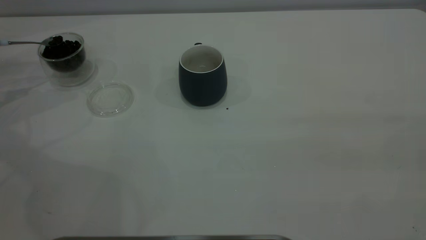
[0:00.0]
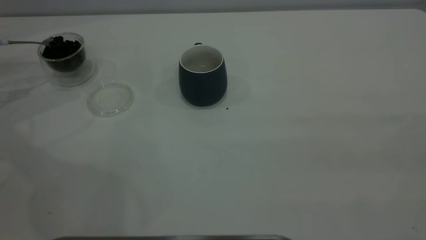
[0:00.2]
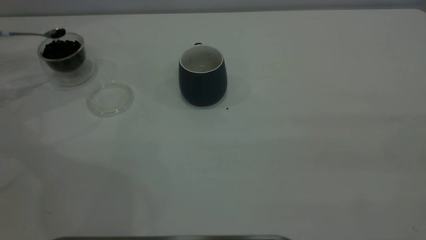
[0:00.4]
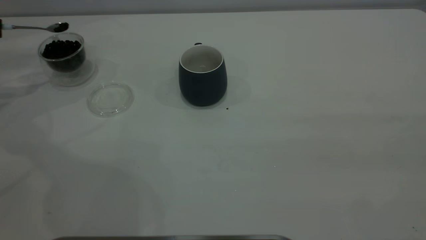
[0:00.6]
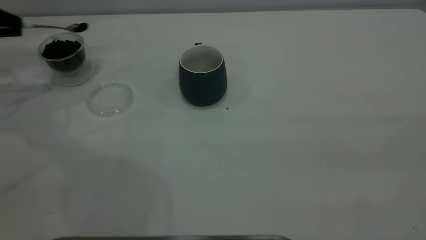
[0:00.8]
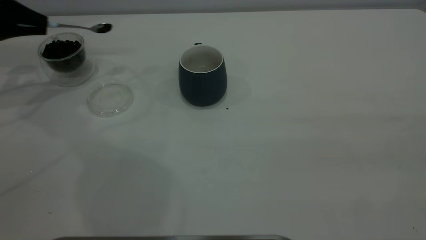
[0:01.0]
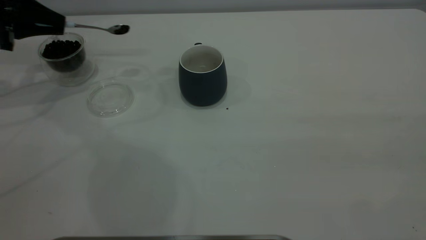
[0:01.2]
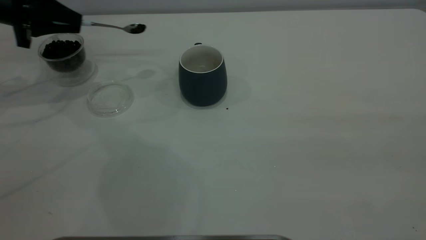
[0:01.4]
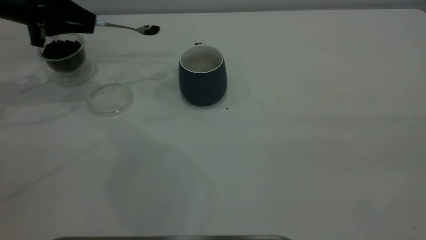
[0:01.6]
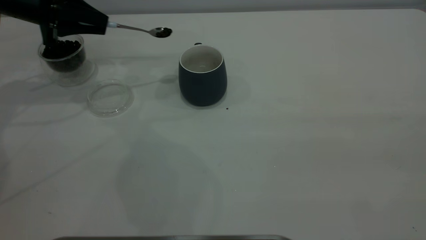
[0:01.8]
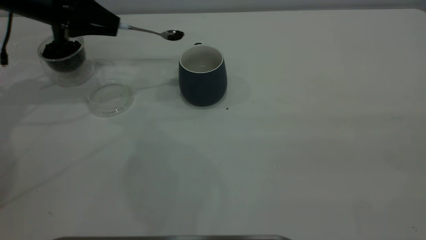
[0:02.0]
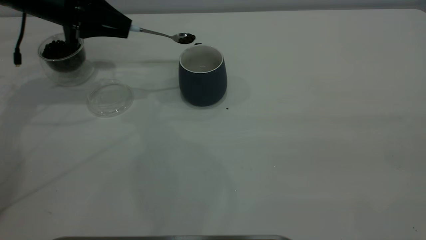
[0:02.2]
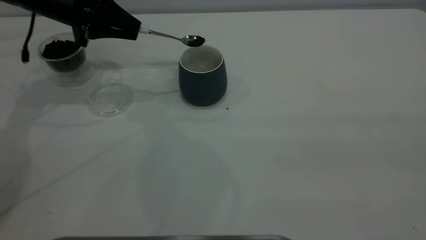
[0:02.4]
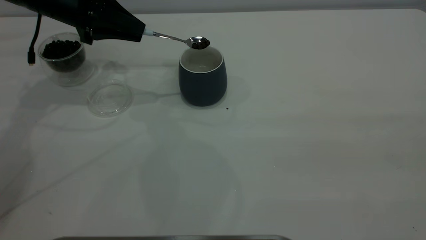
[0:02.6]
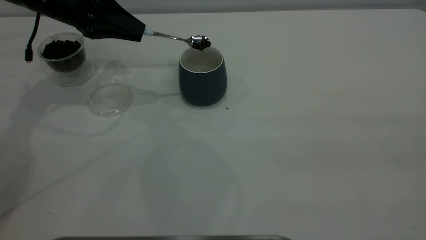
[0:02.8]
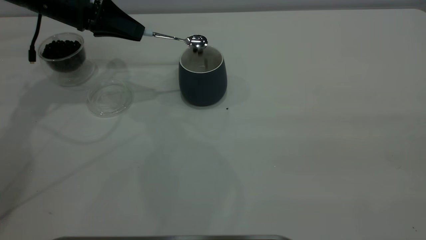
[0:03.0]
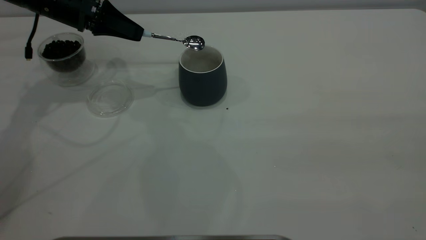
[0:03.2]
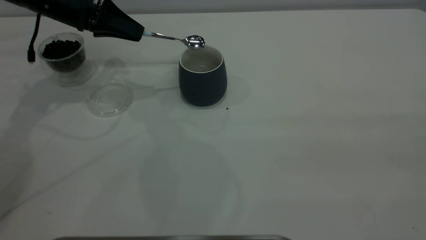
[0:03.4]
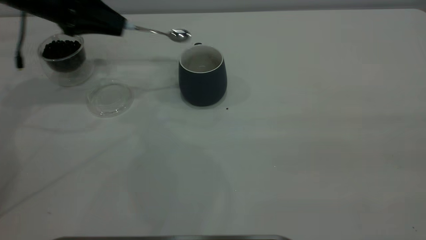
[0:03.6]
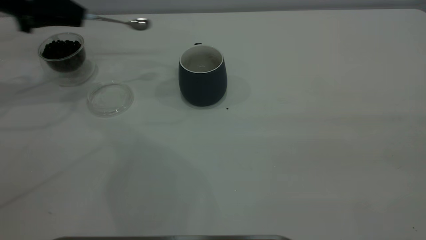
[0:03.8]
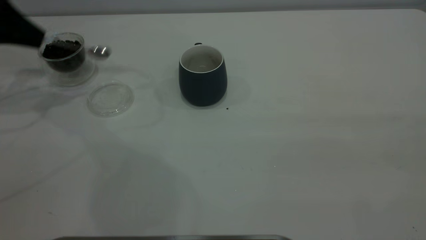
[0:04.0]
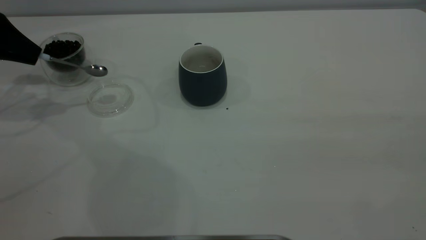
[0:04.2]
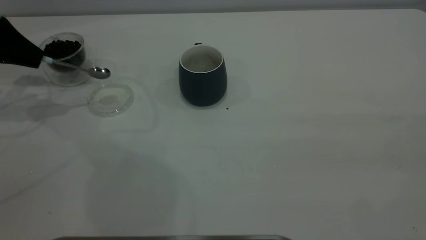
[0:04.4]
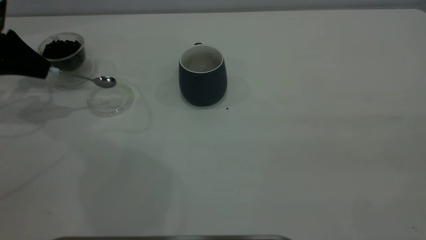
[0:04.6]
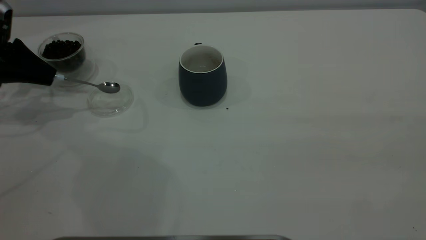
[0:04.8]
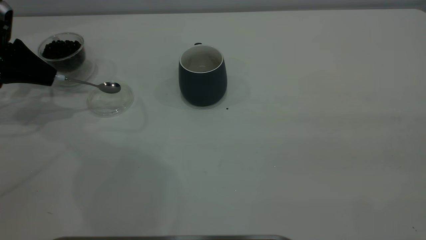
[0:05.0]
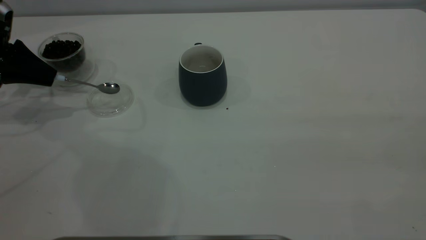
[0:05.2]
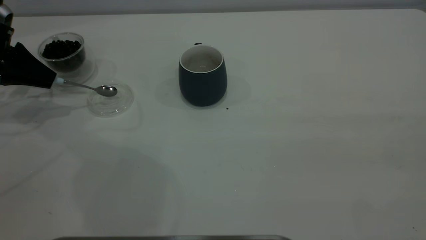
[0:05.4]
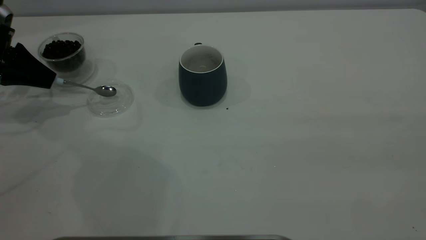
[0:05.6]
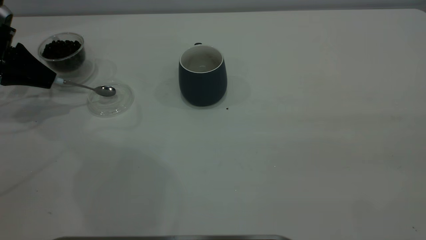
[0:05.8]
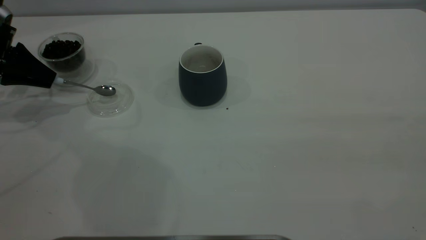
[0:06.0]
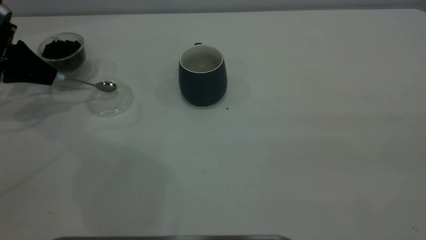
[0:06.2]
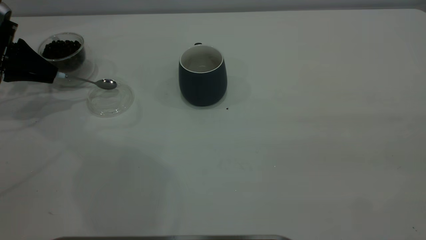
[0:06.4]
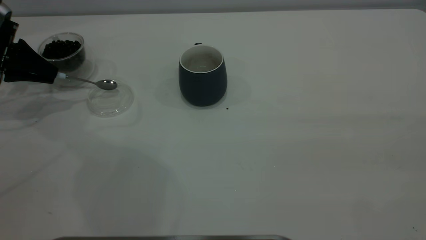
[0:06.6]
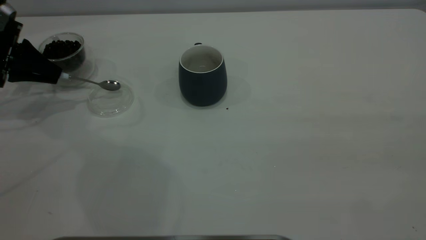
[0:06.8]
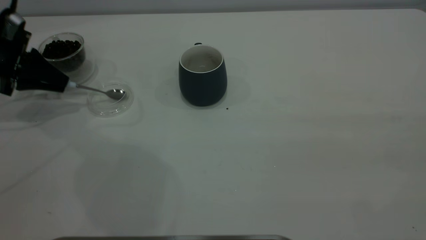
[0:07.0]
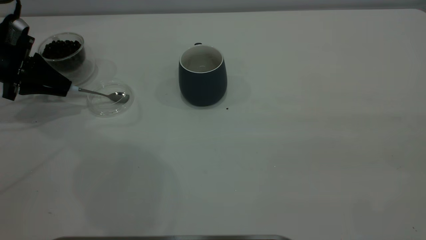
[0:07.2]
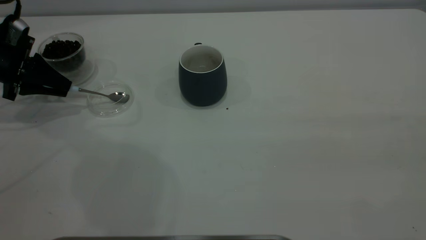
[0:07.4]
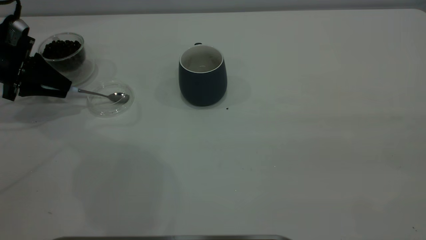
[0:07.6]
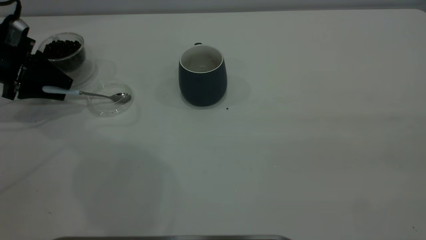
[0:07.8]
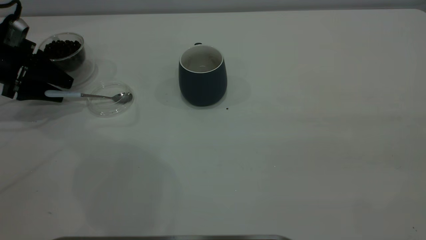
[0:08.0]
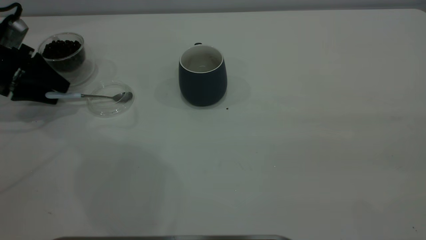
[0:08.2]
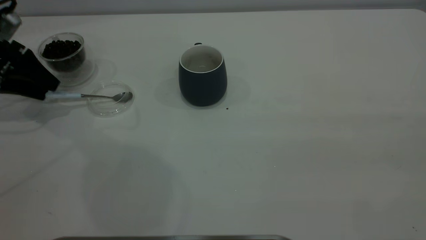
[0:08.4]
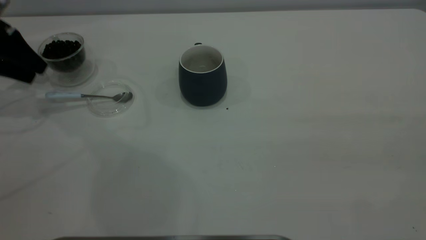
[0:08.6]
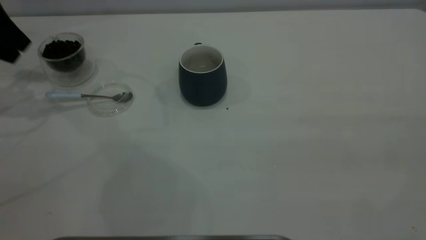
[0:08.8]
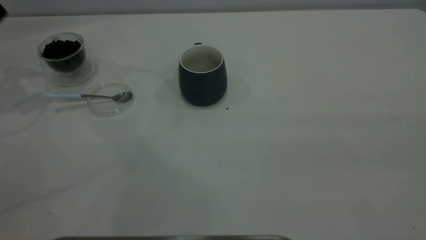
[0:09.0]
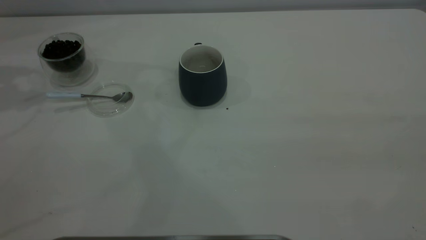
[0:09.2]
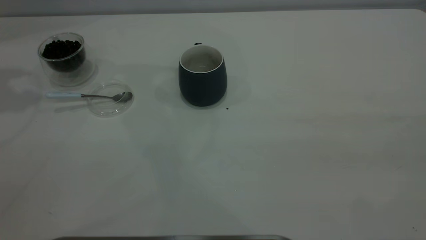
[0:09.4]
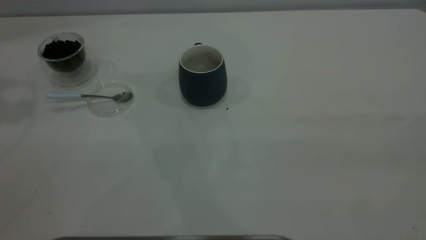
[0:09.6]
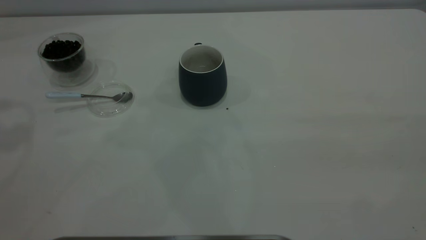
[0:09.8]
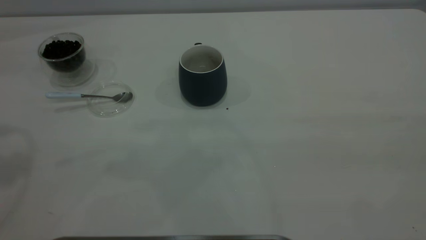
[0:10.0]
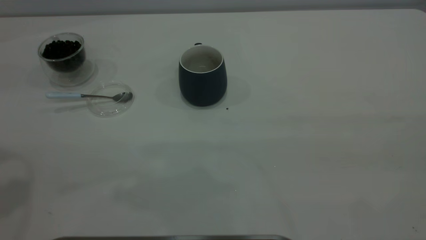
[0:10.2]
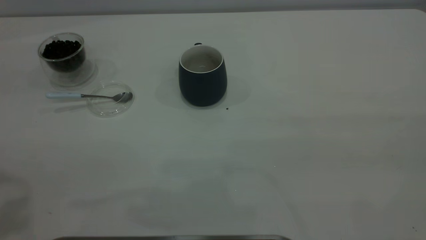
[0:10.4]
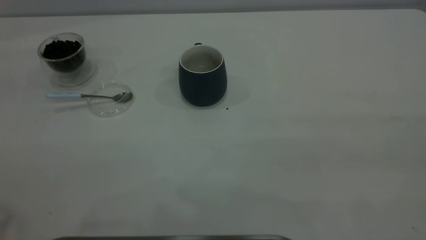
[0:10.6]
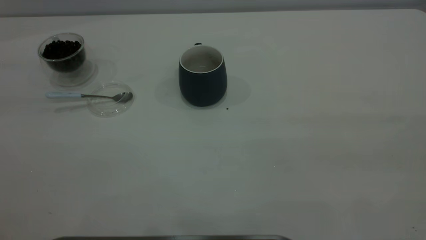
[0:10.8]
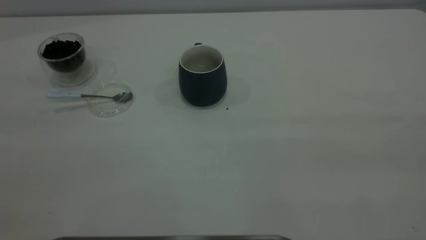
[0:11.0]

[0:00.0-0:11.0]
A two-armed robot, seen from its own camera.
Task of the whole recording: the right gripper place the grey cup in the center of the table, the left gripper take the blue spoon from the cup lid and scoop out the coffee beans from the coffee cup and put them into the grey cup, the left gripper put the spoon back into the cup lid.
Step, 0:00.0 to 0:03.4: Scoop a spoonful of beans into the cup.
Step, 0:03.8 to 0:08.8: Place the spoon back in its original place.
0:00.0 to 0:01.6: The left gripper goes roughly 15 cm to the right.
0:01.6 to 0:03.2: The left gripper travels to the right by about 5 cm.
0:03.2 to 0:04.8: The left gripper heads to the left, covering about 15 cm.
0:06.2 to 0:07.8: The left gripper opens.
0:07.8 to 0:09.4: The left gripper moves upward, approximately 30 cm.

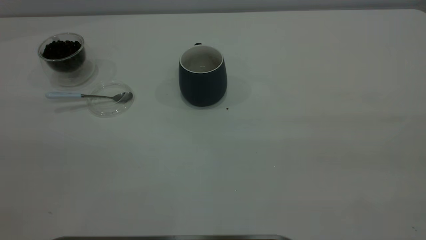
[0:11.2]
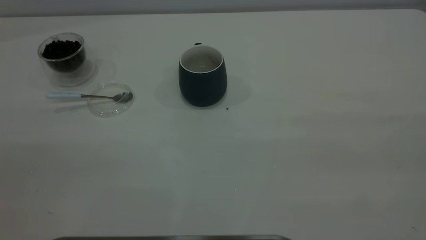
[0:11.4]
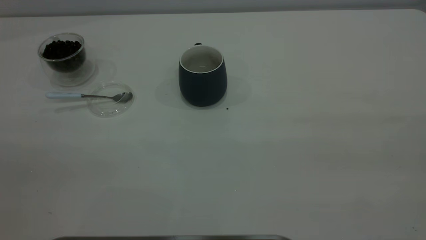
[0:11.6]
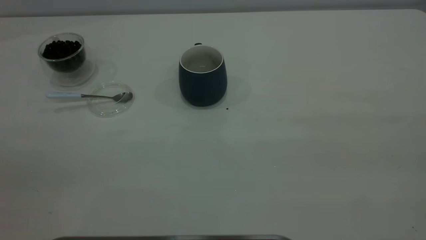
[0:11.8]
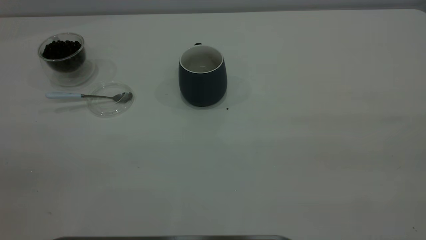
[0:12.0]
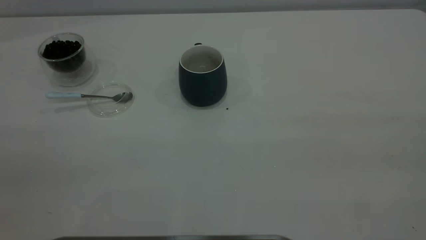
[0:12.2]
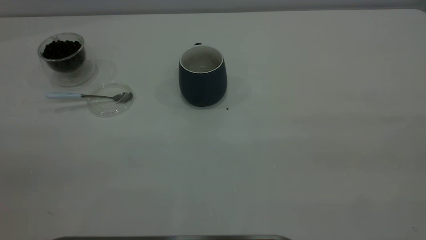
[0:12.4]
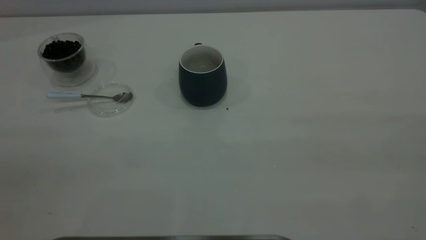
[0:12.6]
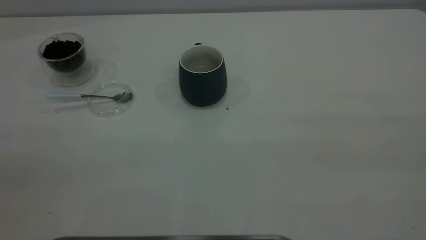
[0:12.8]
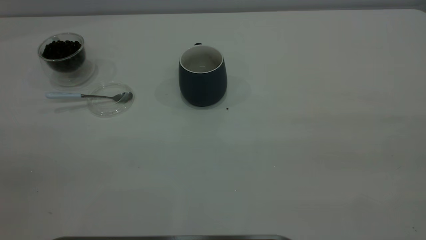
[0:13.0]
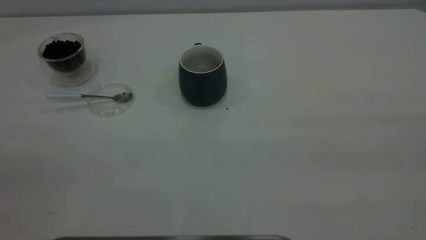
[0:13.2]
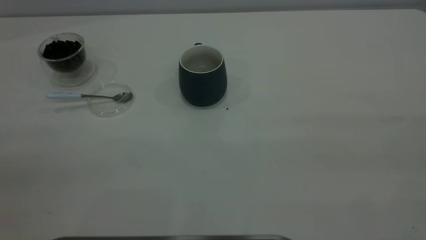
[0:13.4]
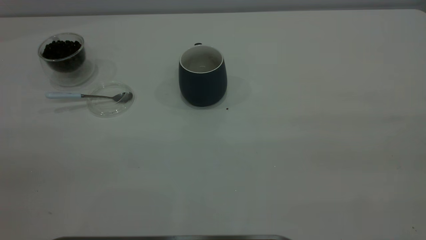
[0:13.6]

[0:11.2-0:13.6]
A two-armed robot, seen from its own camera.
Task of the whole recording: the right gripper place the grey cup in the center of the table, the left gripper take the blue spoon from the cup lid and scoop out the coffee beans from the coffee cup and put them into the grey cup, the left gripper put the spoon back into the cup lid.
0:12.4 to 0:13.6: Neither gripper changes place.

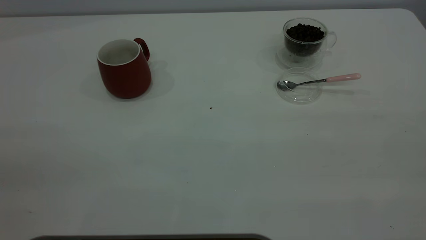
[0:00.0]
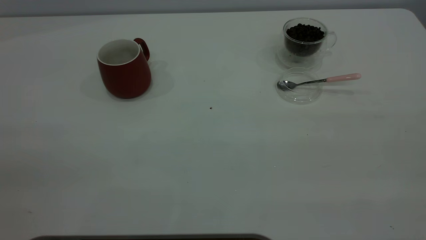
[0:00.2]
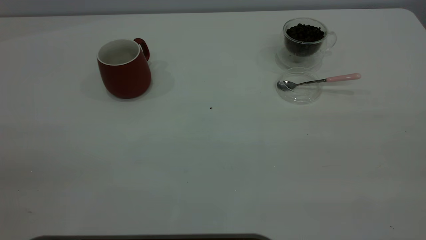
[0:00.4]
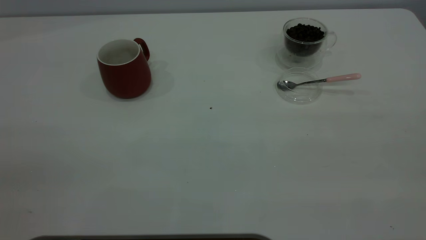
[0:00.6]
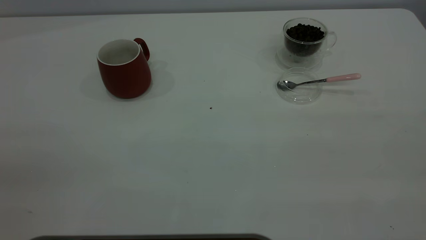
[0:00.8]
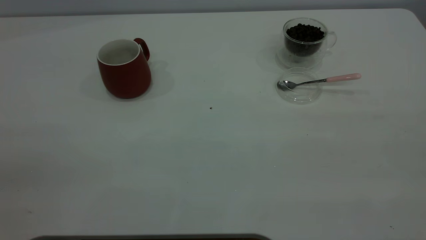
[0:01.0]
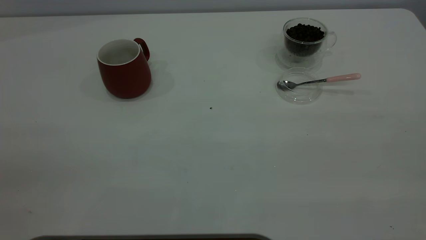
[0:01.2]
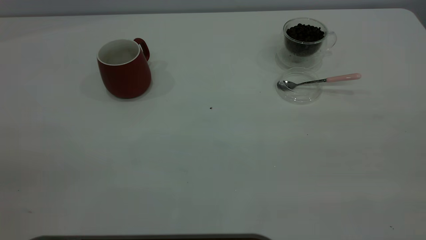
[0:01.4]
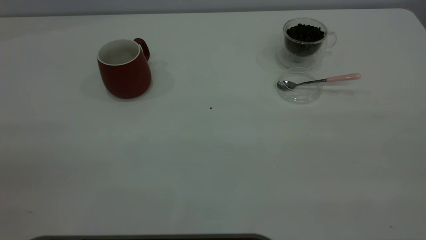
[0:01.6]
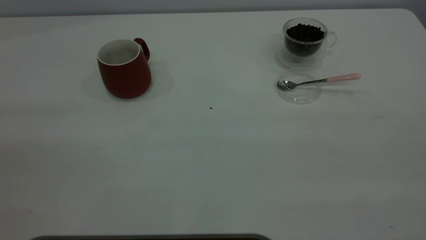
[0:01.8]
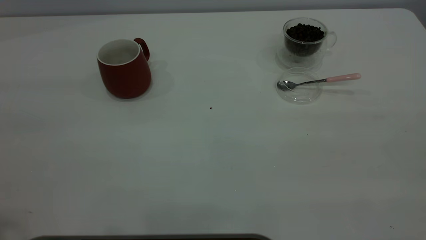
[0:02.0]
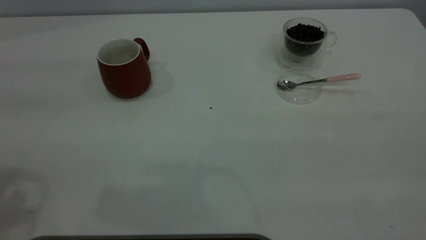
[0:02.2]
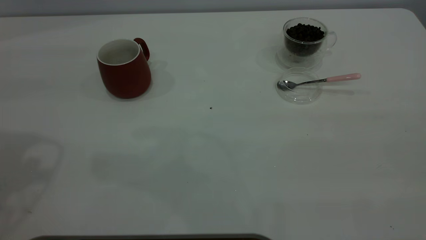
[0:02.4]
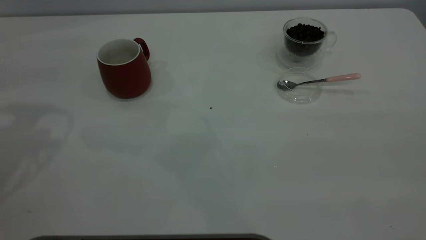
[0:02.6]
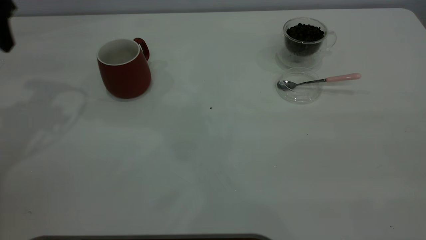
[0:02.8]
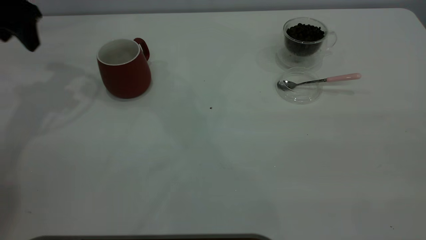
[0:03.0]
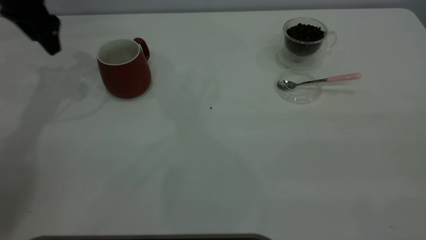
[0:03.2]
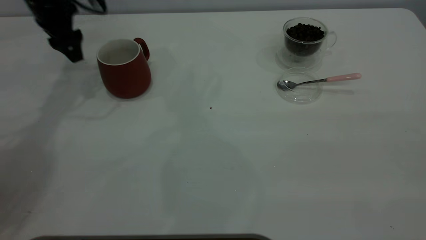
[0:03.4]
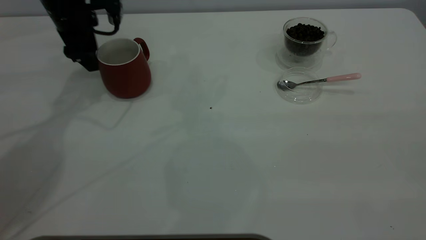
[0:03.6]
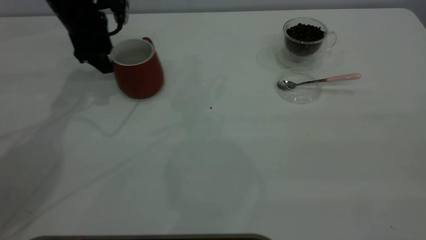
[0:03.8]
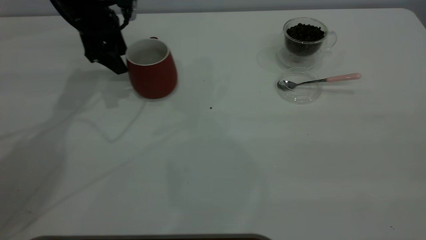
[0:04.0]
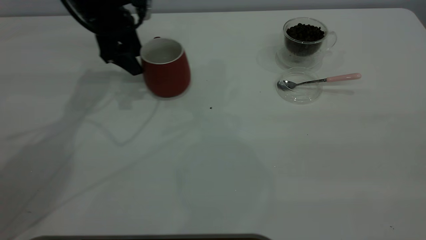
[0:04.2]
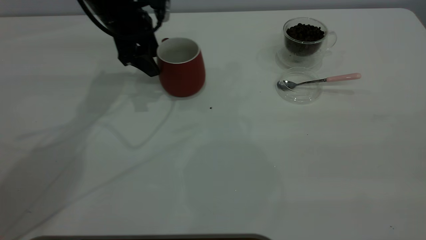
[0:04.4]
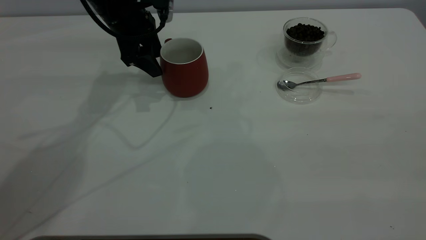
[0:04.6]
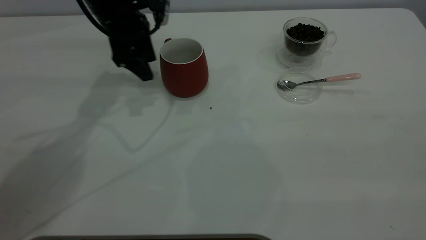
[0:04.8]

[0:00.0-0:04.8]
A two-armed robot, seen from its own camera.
Task of the whole recording: the left gripper place the red cup in the center of the table, the right gripper take the pink spoon from the cup lid and scoop out the coffee beans from the coffee cup and put them into the red cup, the right gripper put the spoon back into the cup lid.
Step, 0:00.0 to 0:04.8: Move the cup to the center of view.
0:01.6 to 0:03.2: The left gripper goes roughly 50 cm forward.
0:03.2 to 0:04.8: The left gripper shifts some 10 cm to the right.
